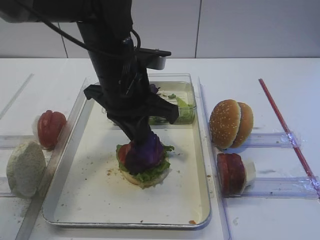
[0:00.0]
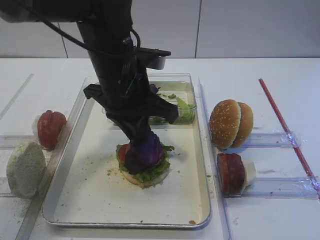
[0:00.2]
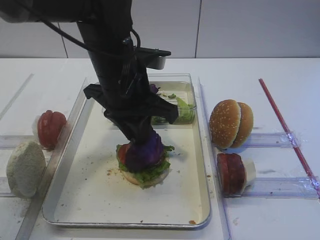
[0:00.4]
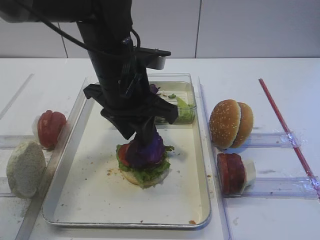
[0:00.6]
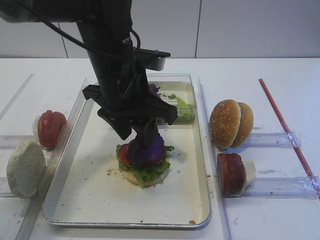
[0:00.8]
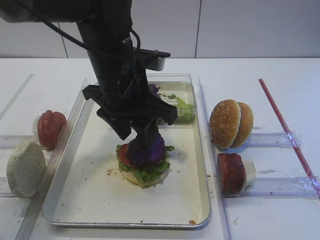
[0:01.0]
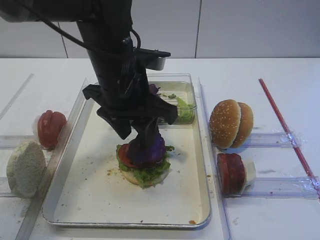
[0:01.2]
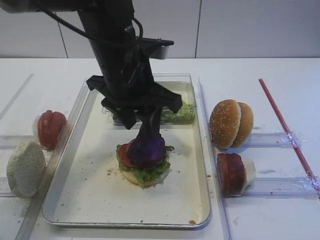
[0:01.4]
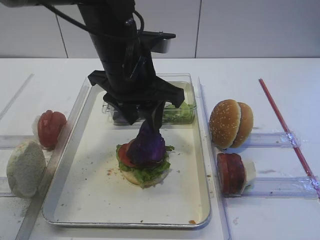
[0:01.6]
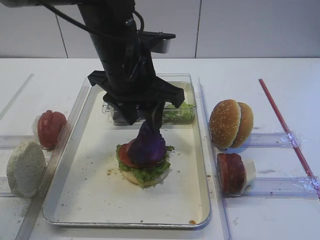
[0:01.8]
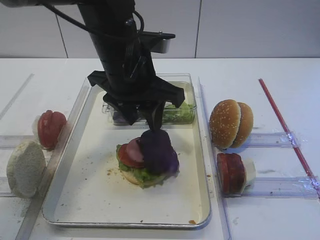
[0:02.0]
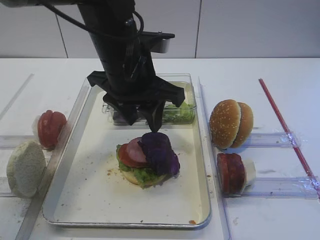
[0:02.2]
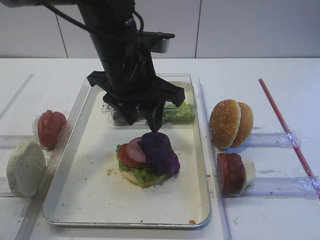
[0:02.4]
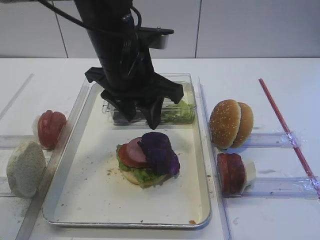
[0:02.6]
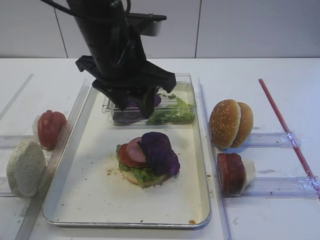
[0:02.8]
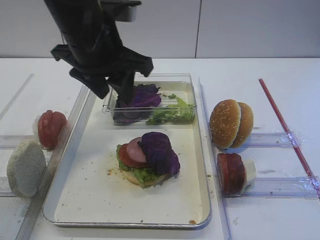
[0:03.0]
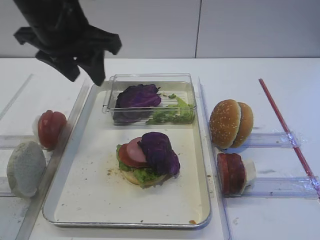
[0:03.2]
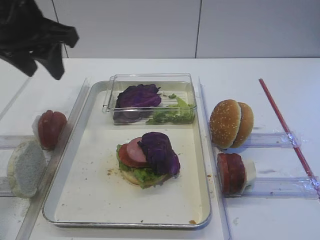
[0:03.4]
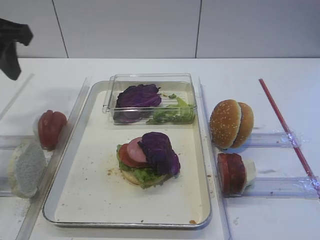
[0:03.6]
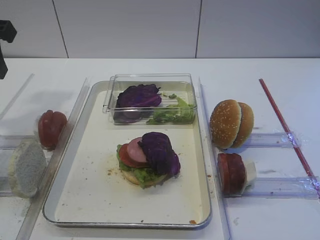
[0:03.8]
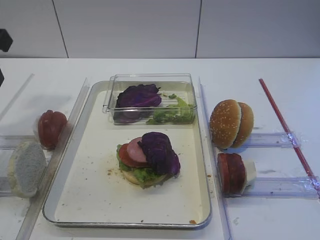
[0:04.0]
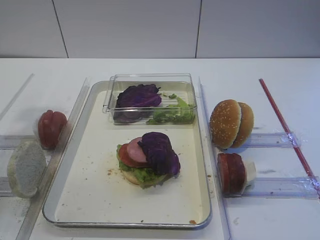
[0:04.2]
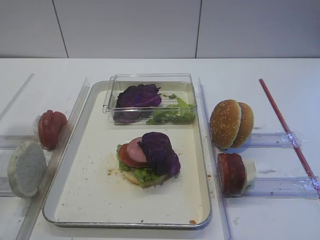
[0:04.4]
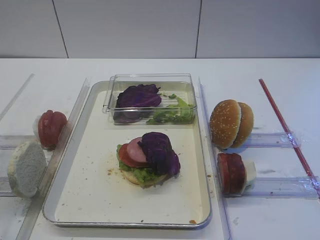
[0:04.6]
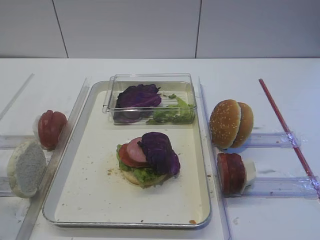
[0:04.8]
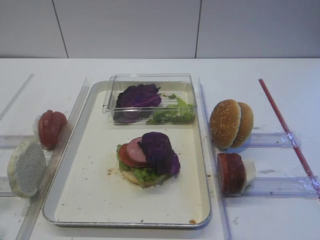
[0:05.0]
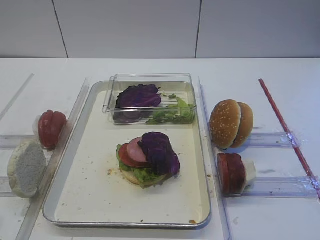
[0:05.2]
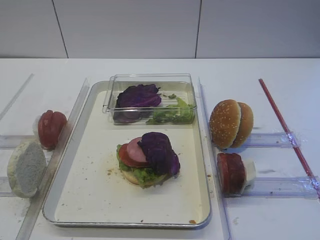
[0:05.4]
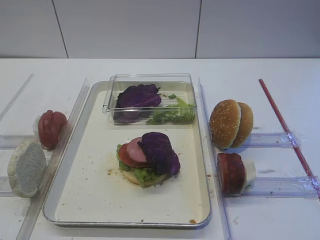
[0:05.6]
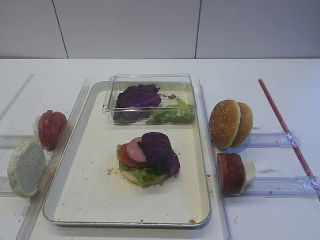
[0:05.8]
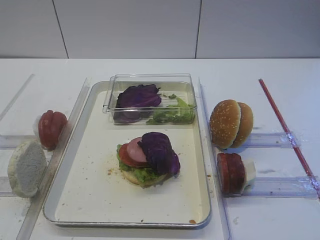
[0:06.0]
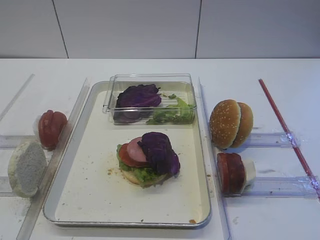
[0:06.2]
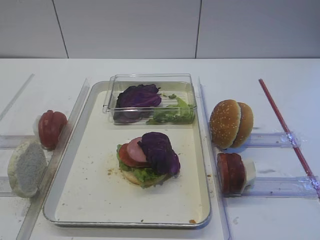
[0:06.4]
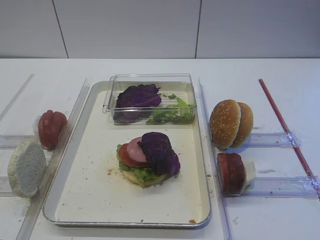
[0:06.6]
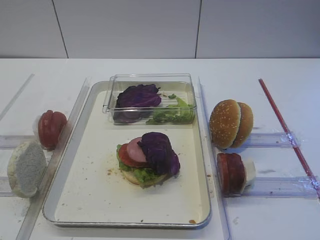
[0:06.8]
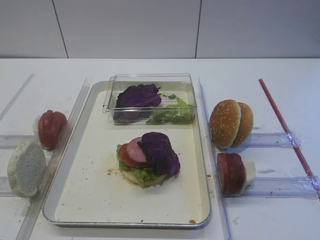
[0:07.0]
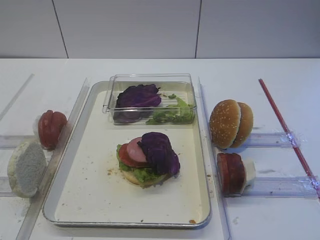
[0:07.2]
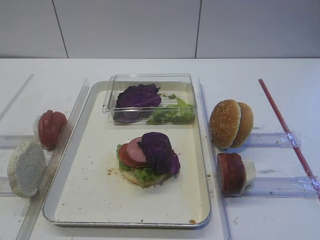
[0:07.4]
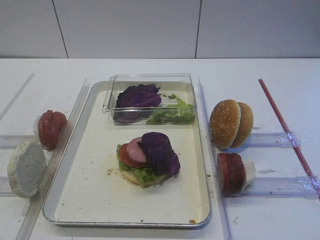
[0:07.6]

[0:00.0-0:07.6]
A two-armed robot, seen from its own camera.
Step, 0:00.0 to 0:02.0: Place the purple cabbage on the cutlet with the left gripper.
0:00.0 to 0:01.6: The left gripper opens its fingers.
0:01.6 to 0:03.0: The left gripper shifts by roughly 5 cm.
0:03.0 to 0:04.6: The left gripper moves to the left and backward, some 25 cm.
0:04.6 to 0:06.0: The left gripper shifts some 15 cm backward and downward.
0:06.0 to 0:07.6: Both grippers stay about where they are.

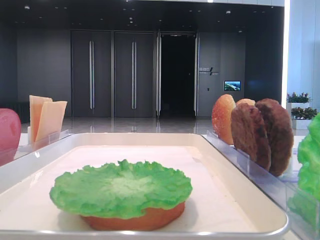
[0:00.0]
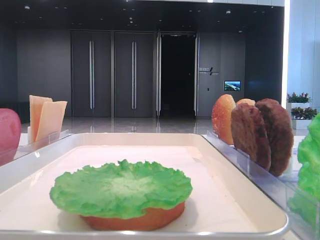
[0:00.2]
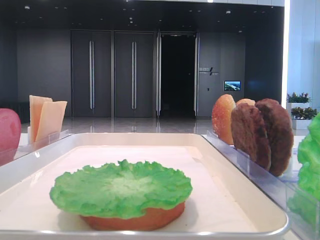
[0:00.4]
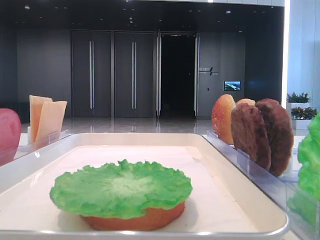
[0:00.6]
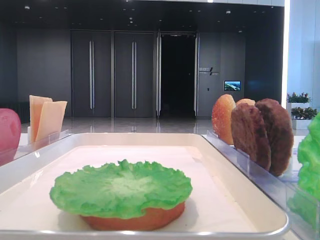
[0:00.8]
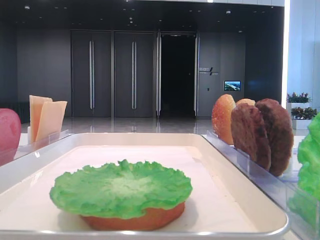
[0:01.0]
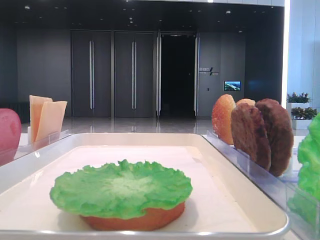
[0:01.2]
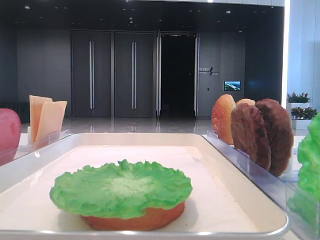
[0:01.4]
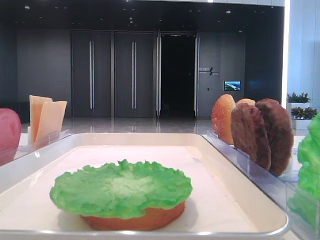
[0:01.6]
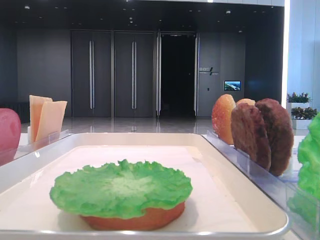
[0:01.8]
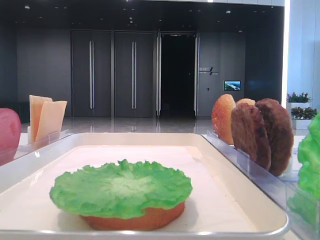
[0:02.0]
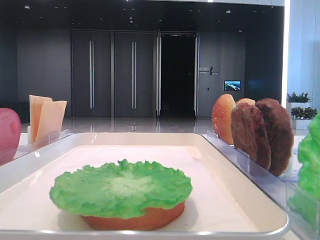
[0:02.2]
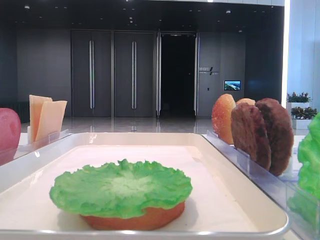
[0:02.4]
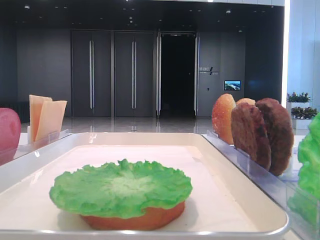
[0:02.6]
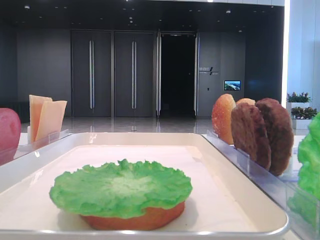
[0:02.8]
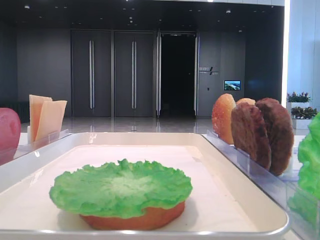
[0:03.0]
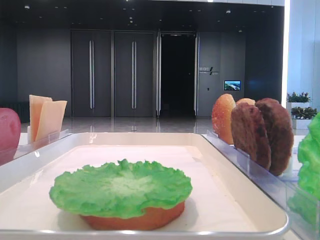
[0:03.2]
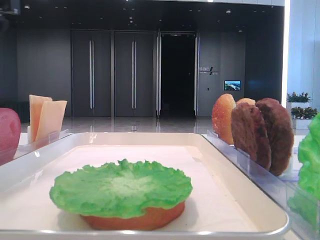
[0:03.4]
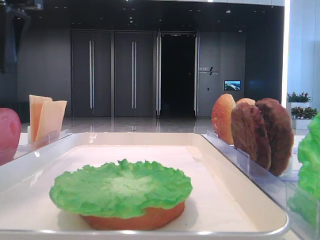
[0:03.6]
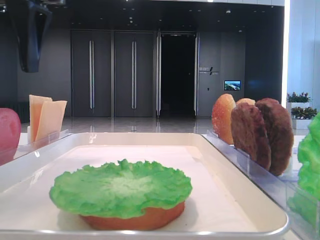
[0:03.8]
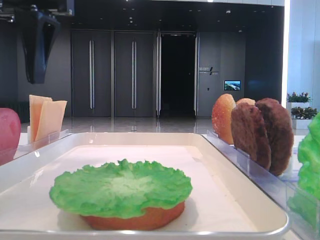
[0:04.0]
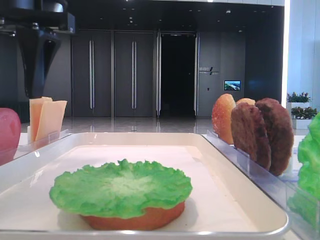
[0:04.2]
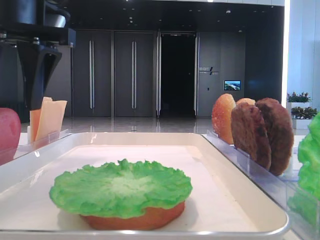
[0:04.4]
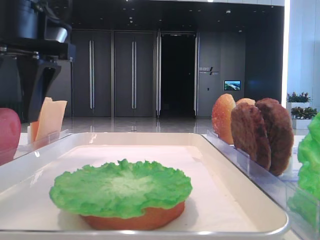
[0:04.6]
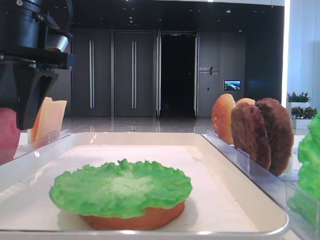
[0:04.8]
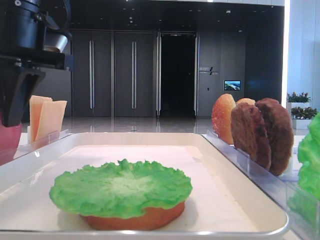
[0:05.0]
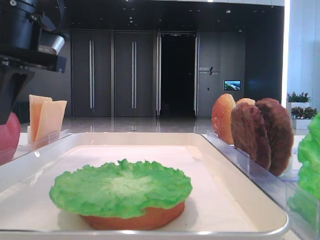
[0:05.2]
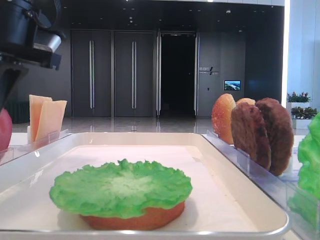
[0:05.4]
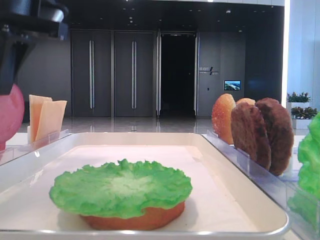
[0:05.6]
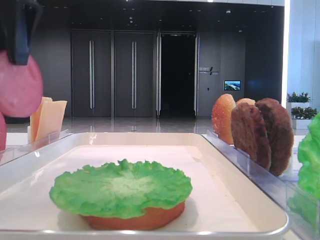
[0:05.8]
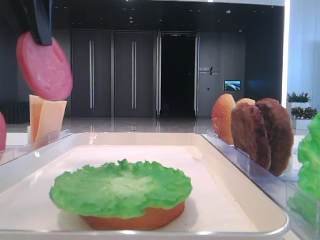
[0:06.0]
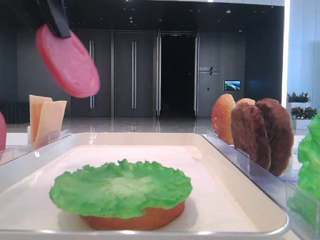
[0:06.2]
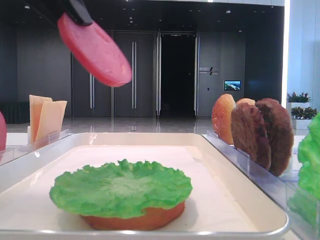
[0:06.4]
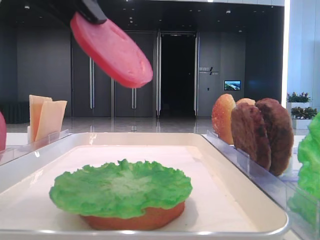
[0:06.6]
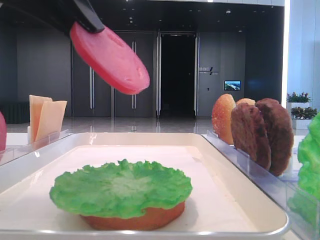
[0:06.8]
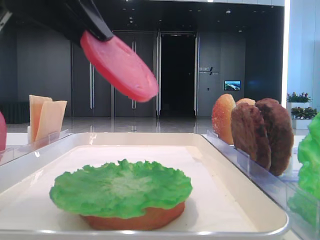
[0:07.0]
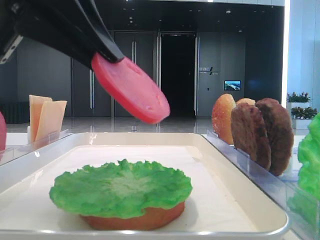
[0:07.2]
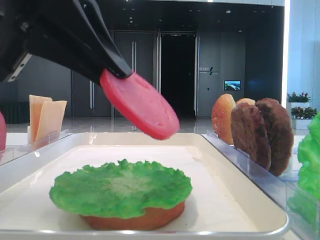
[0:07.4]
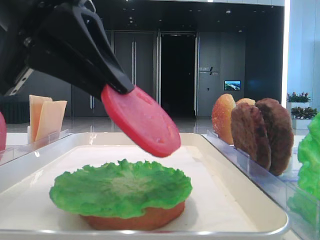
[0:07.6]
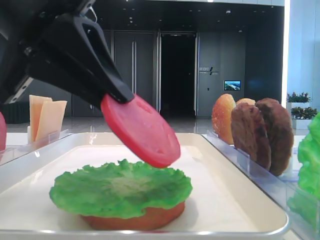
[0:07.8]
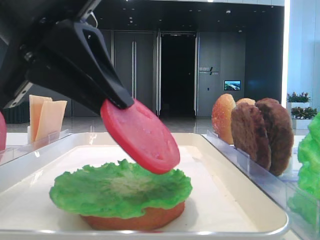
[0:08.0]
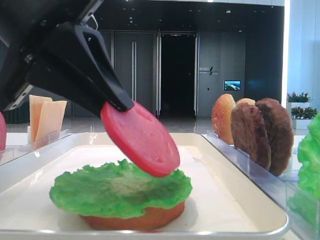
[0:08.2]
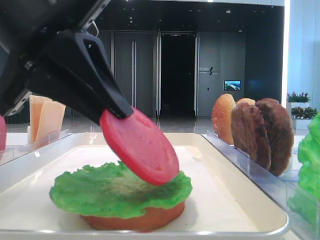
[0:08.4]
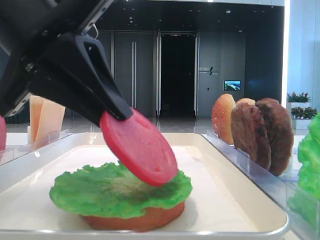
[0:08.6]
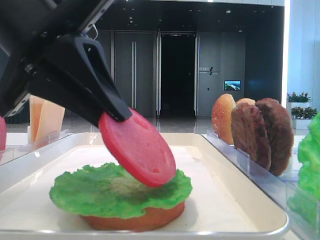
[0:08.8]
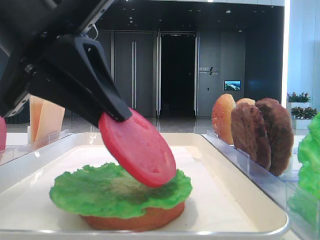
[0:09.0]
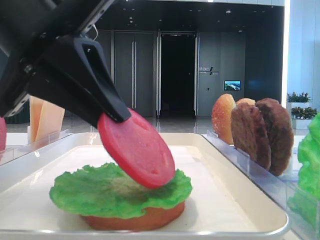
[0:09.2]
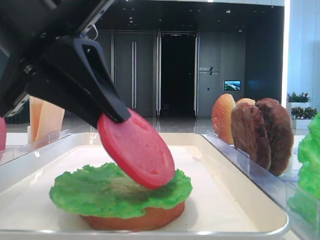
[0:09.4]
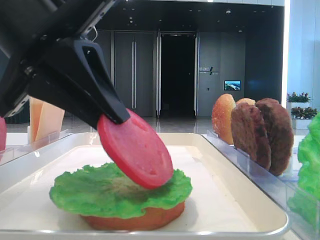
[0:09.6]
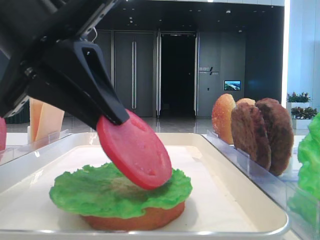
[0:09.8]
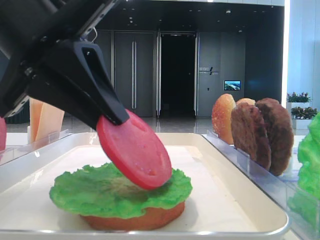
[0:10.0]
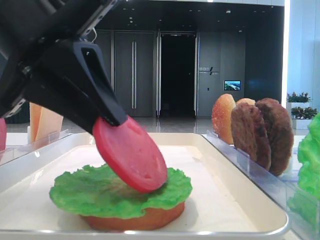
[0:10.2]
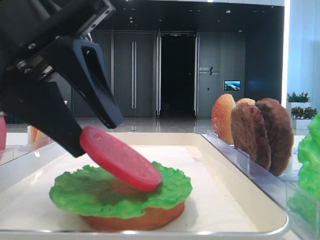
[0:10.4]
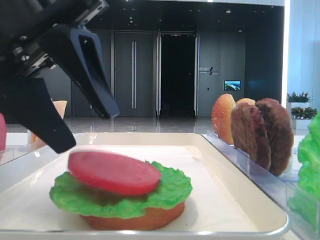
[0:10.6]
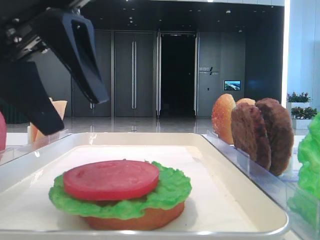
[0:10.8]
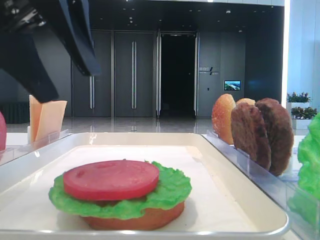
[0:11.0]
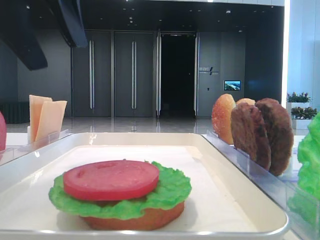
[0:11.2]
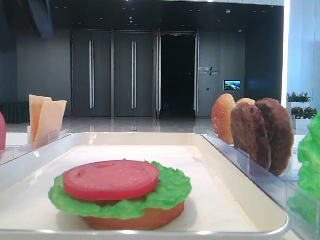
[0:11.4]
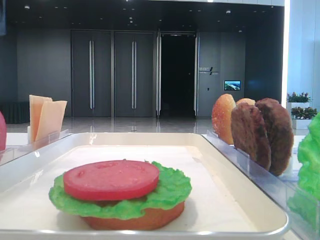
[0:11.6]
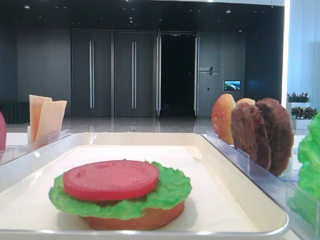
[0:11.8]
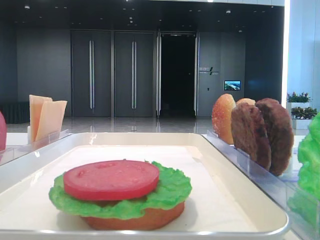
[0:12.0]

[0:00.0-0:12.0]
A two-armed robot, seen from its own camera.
Step, 0:00.0 to 0:05.0: Pick up the tomato slice with the left hand.
Step, 0:05.2 to 0:10.6: Place the tomato slice on the lettuce leaf with the left hand.
0:03.0 to 0:04.4: The left gripper travels to the right by approximately 10 cm.
0:04.4 to 0:06.0: The left gripper heads upward, covering about 5 cm, and closes.
0:06.0 to 0:07.6: The left gripper heads downward, covering roughly 10 cm.
0:07.6 to 0:09.0: There are only small adjustments of the grippers.
0:09.0 to 0:10.4: The left gripper opens its fingers.
0:10.4 to 0:12.0: The left gripper moves to the left and upward, some 20 cm.

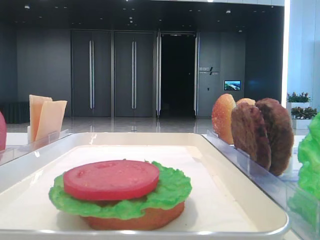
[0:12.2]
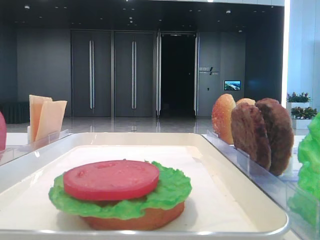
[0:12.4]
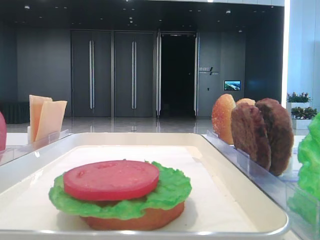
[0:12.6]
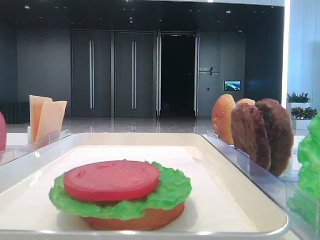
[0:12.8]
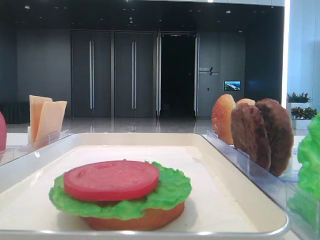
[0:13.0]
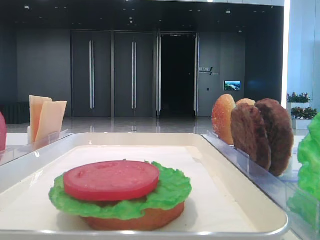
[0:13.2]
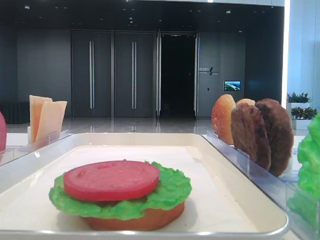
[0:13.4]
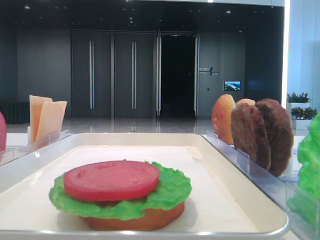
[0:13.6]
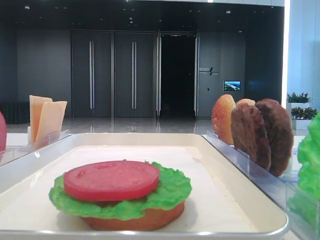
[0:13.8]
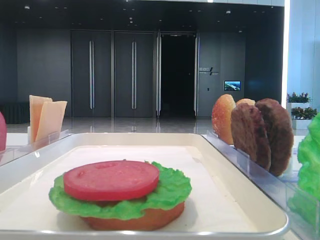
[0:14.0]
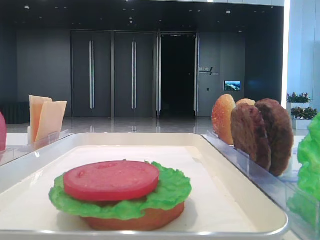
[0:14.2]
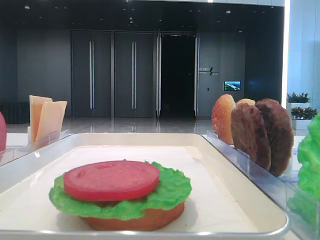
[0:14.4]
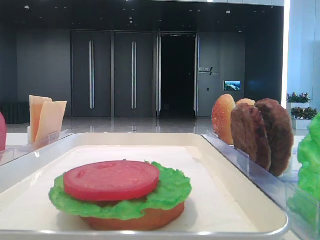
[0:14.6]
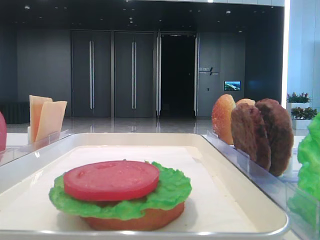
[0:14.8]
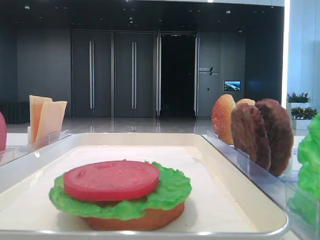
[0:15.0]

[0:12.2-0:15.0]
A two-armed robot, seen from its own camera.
0:12.2 to 0:13.6: The left gripper goes some 25 cm backward.
